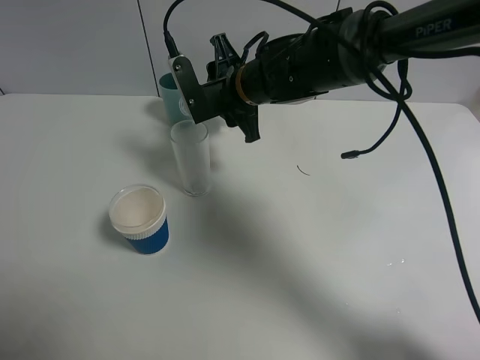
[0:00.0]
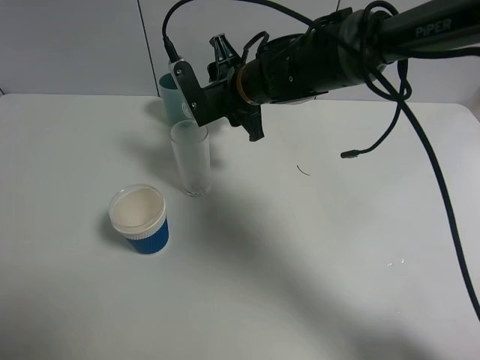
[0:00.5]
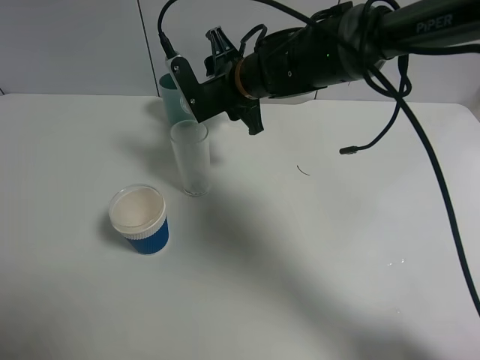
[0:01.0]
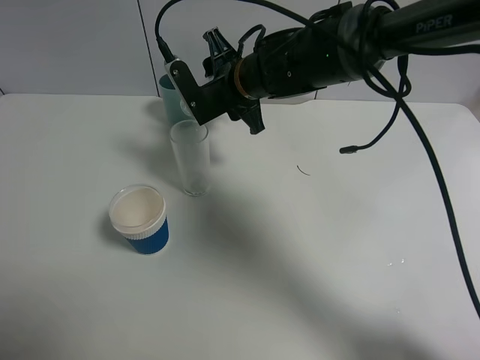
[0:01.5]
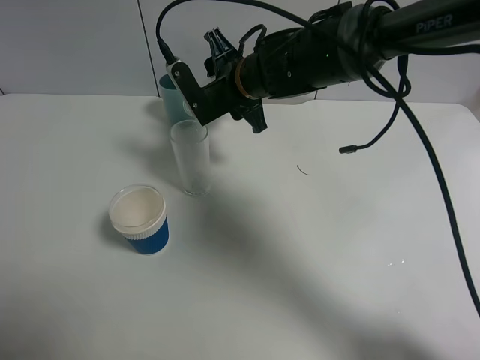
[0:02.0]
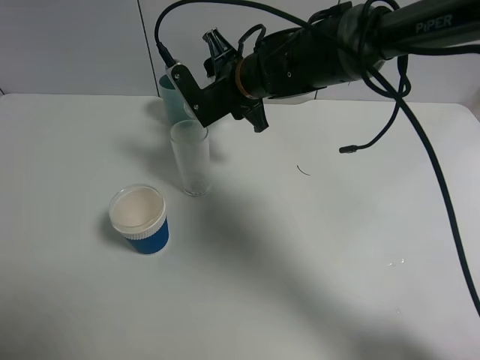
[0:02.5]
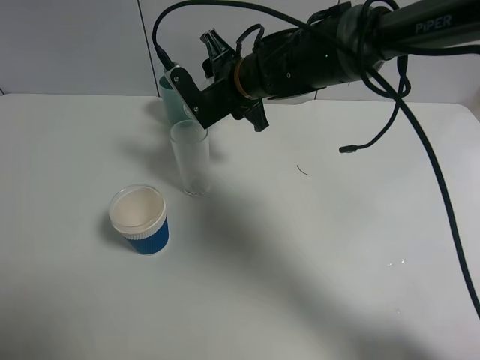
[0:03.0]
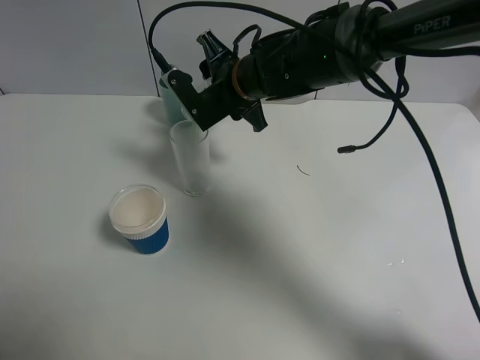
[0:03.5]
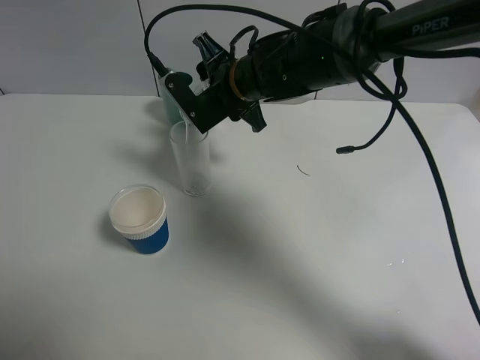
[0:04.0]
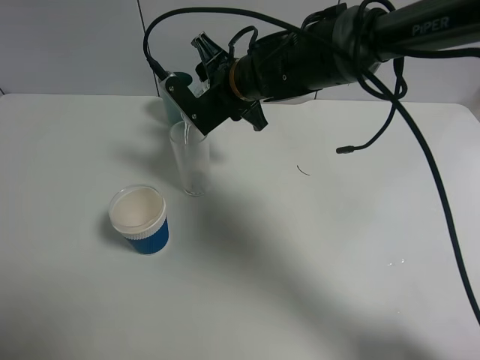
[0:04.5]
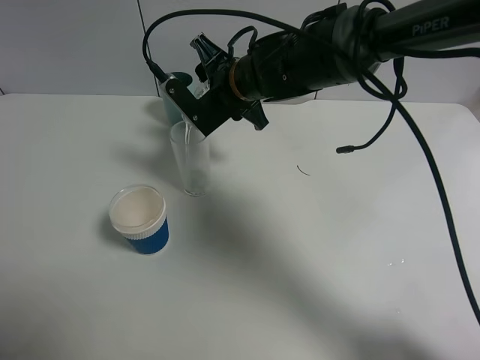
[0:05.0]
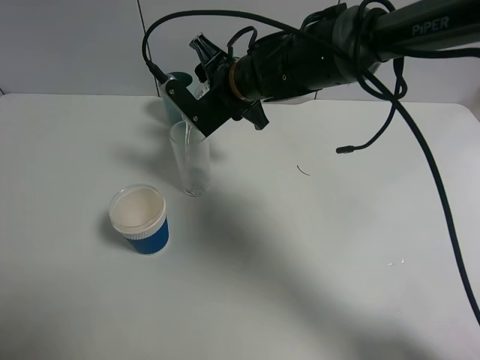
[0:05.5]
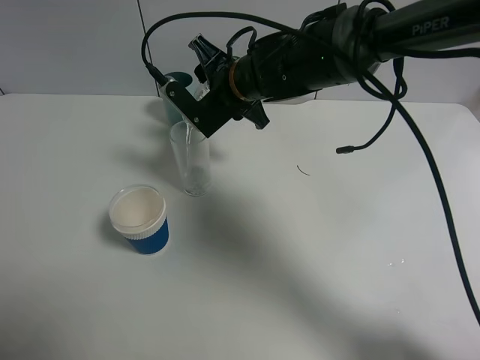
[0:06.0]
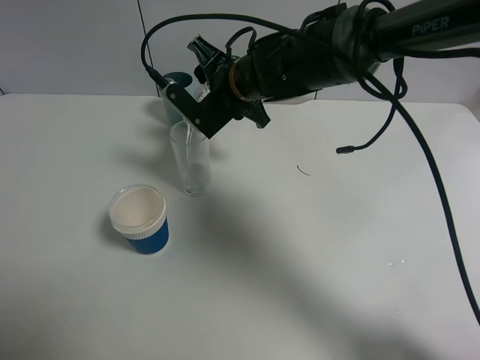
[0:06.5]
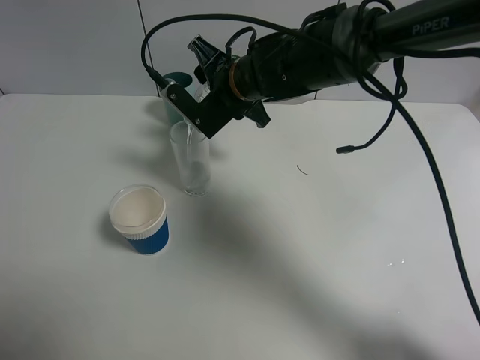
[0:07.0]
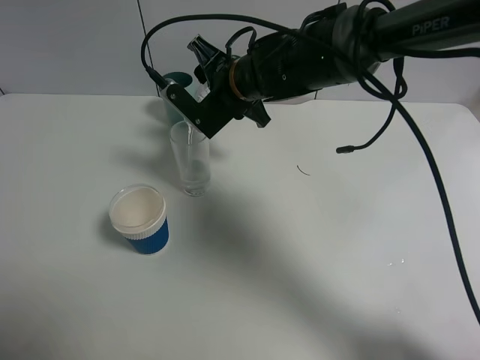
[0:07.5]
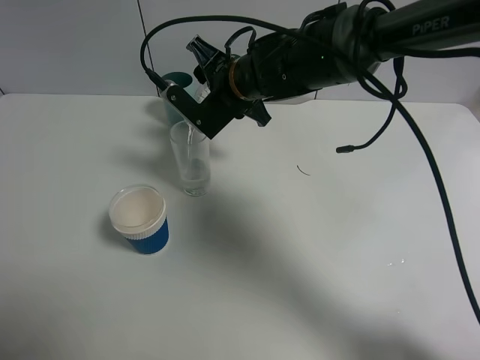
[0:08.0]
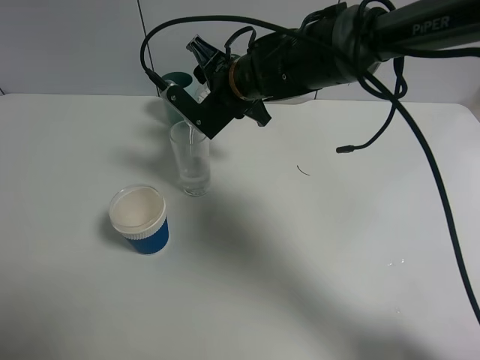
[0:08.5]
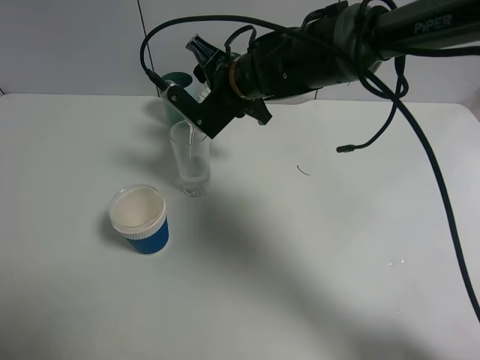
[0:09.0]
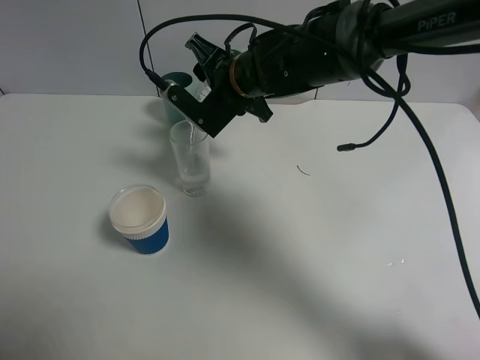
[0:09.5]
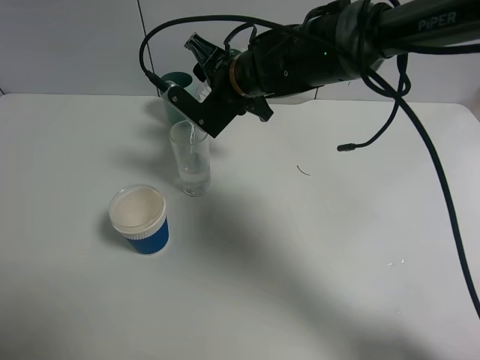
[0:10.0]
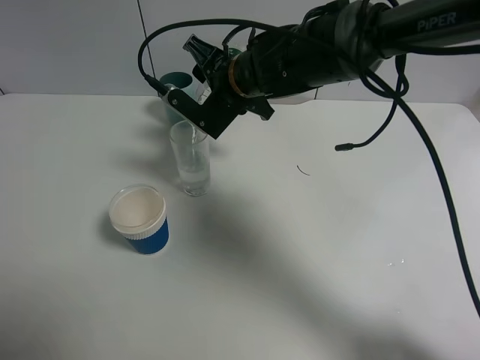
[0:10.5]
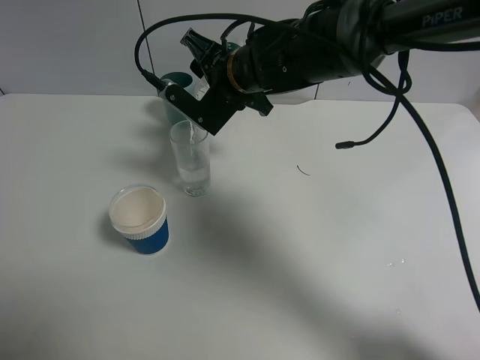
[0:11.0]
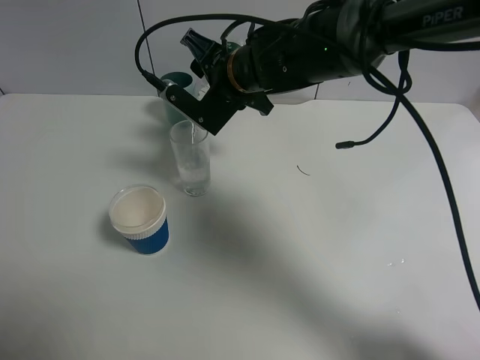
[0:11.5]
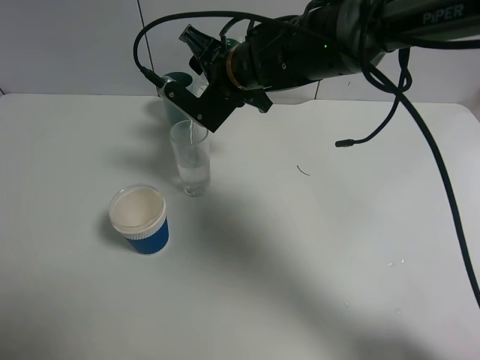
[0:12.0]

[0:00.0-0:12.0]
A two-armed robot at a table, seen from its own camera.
Task of the whole recording: use a gripper to hold the bottle of the drink and pour it into a random cup.
0:00.0 to 0:04.0: The grippers move only a little.
0:04.0 to 0:06.0: The grippers make only small movements.
0:06.0 to 0:08.0: Both grippers stay about where they are.
0:08.0 to 0:10.0: Both grippers stay put.
0:10.0 to 0:12.0: Both grippers stay about where they are.

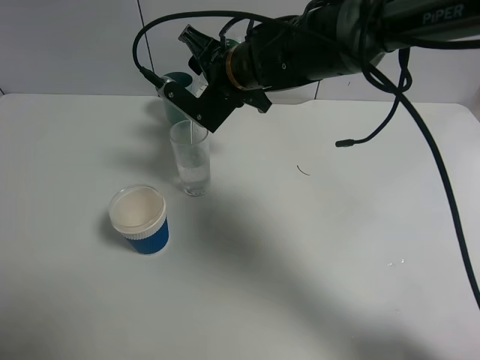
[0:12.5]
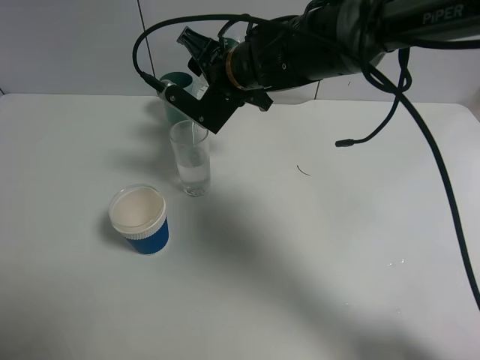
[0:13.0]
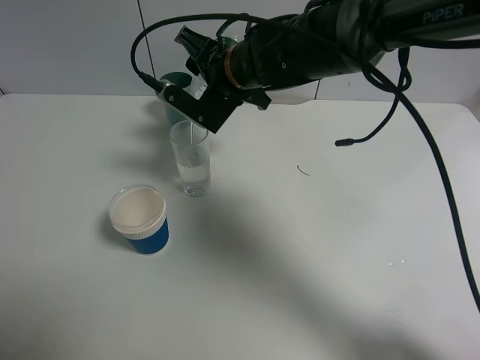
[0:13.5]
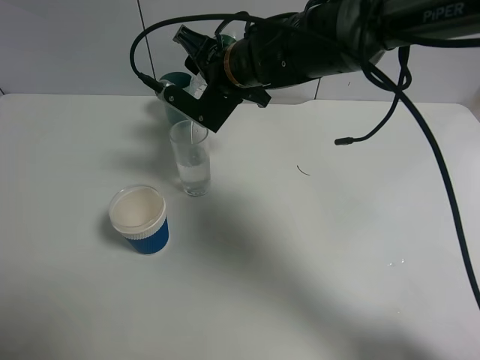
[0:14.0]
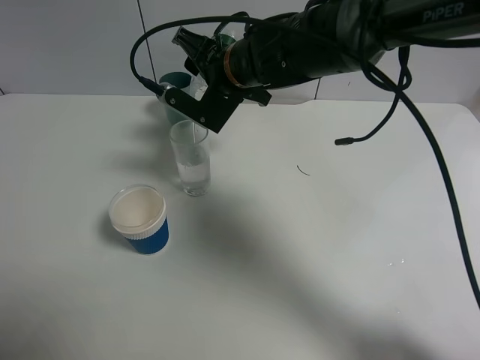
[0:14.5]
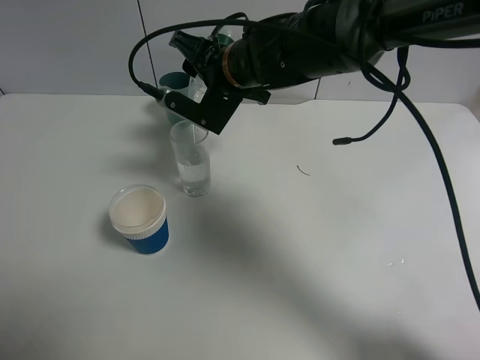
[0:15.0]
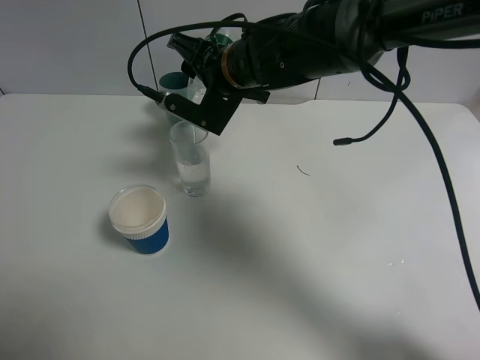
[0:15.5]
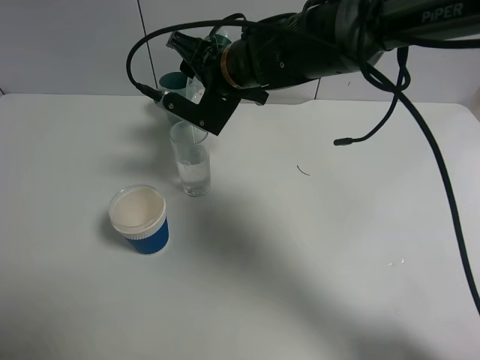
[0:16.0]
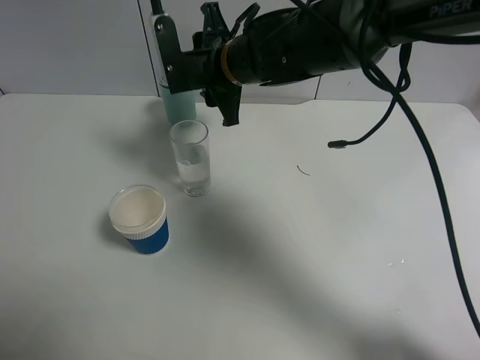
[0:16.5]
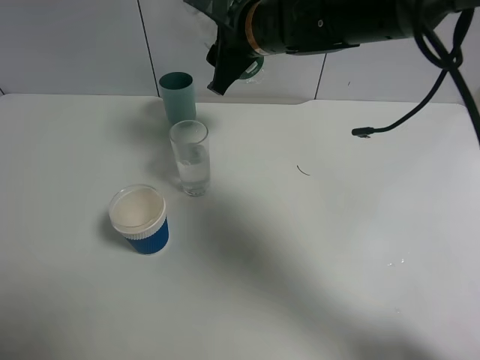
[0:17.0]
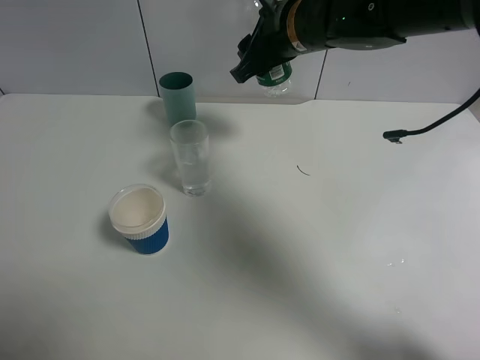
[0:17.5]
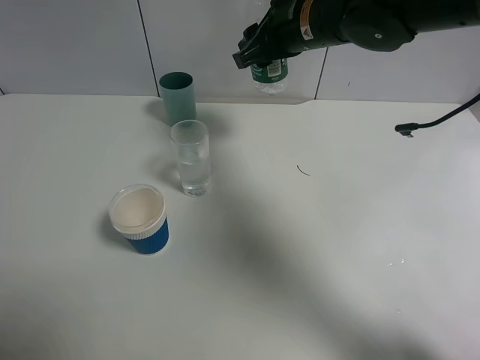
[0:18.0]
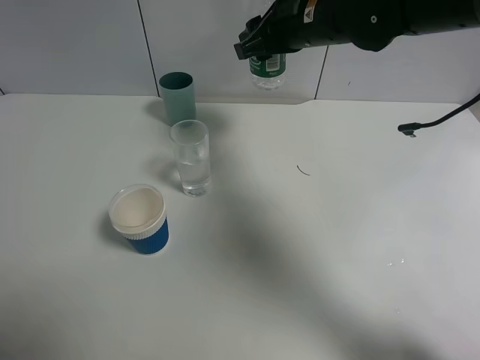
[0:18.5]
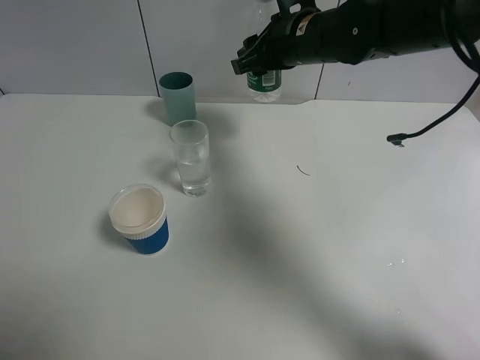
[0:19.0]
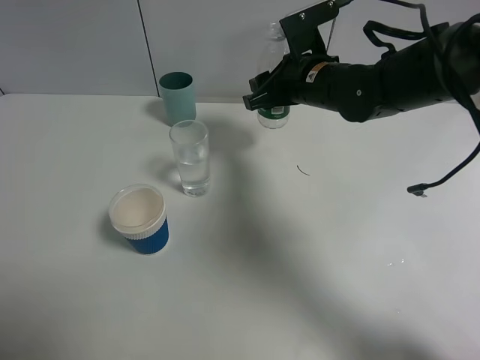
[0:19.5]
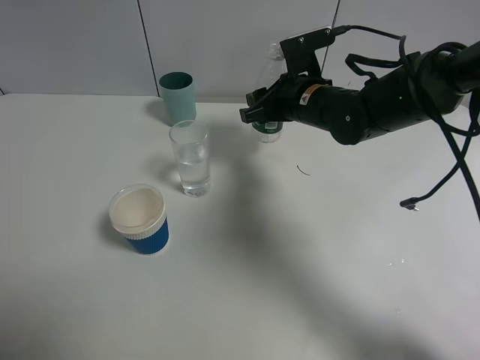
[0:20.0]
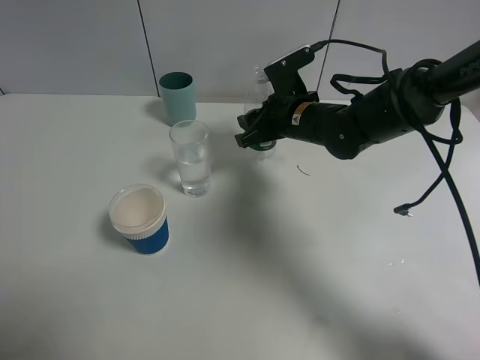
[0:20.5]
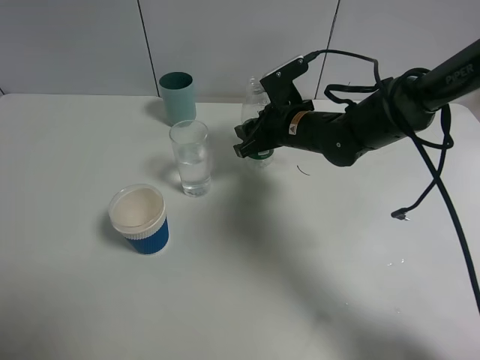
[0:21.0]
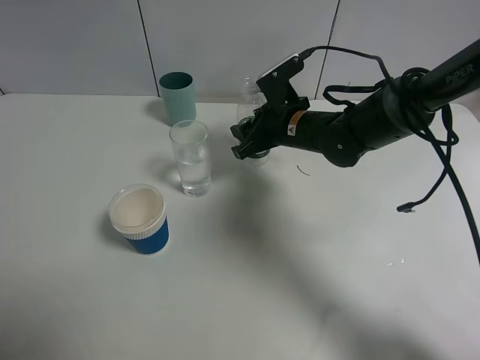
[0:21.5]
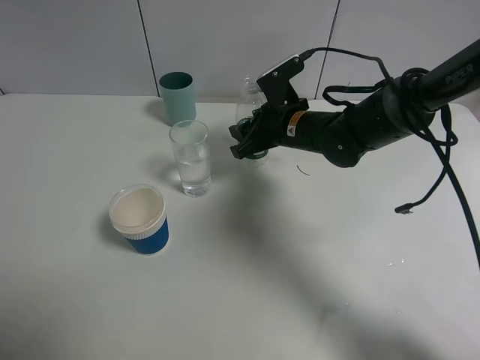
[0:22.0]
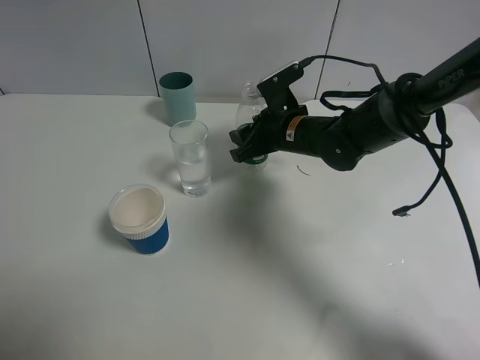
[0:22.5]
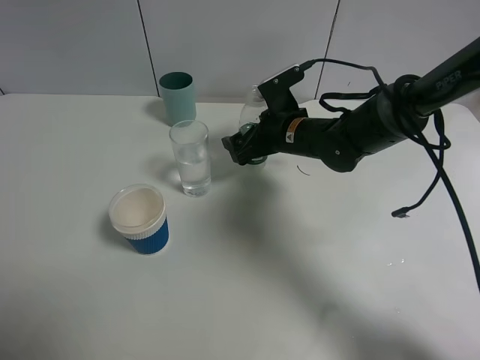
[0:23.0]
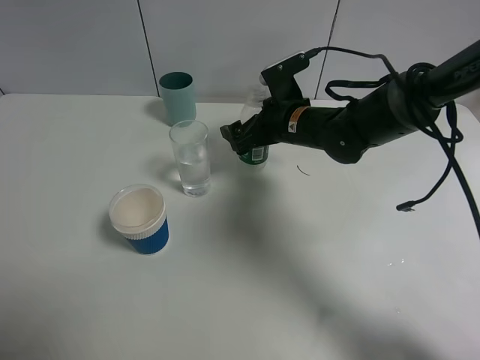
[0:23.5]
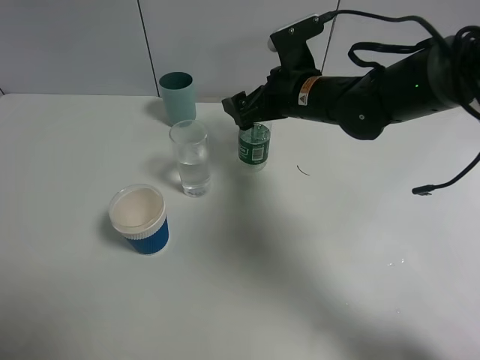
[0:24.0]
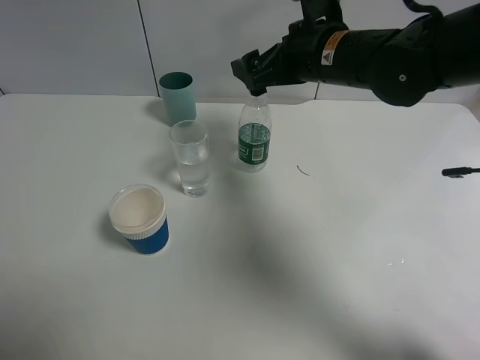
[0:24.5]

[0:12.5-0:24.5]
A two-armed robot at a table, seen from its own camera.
Task of the whole recording: use a gripper to hold the bottle of the drink and pour it into a random cup.
Step, 0:12.5 to 0:16.5: Pour the mineral water into the glass with the right gripper.
Step, 0:17.0 to 0:24.0: Place the mineral water bottle on the table with the right gripper.
0:12.5 to 0:14.5: The grippers make only small movements.
0:16.5 to 0:18.5: The right gripper is displaced to the right by approximately 10 cm.
0:18.5 to 0:20.5: The right gripper travels downward by about 15 cm.
0:20.5 to 0:22.5: The grippers move only a little.
0:22.5 to 0:24.5: The right gripper shifts approximately 15 cm upward, and opens up.

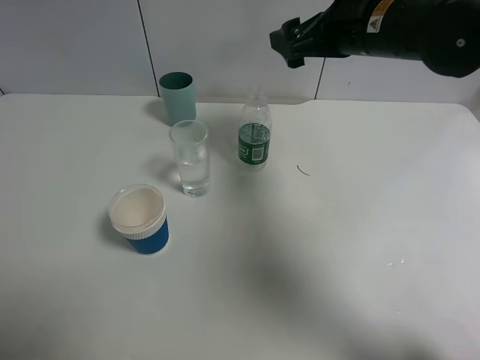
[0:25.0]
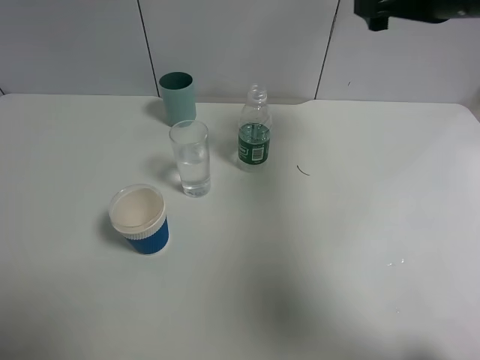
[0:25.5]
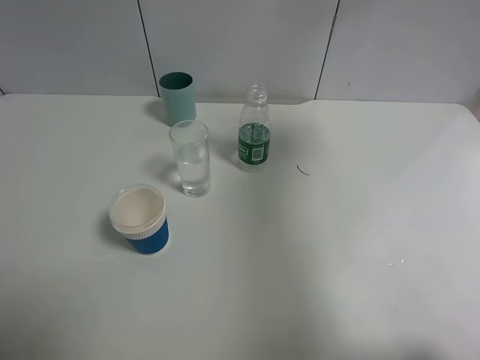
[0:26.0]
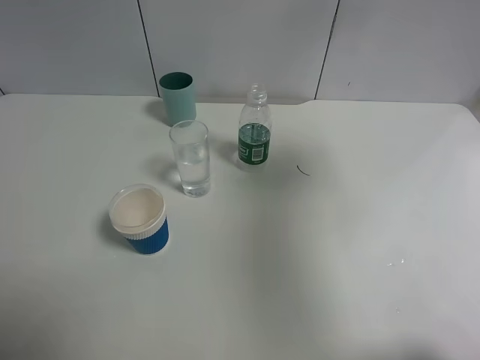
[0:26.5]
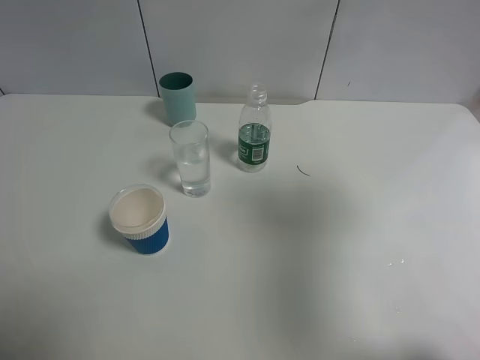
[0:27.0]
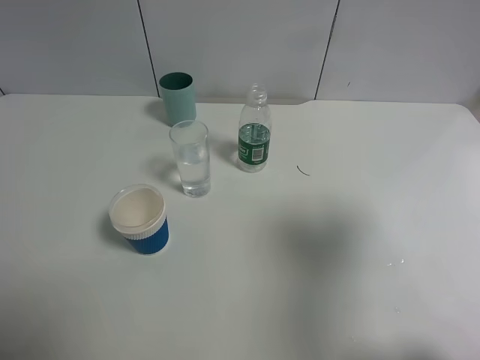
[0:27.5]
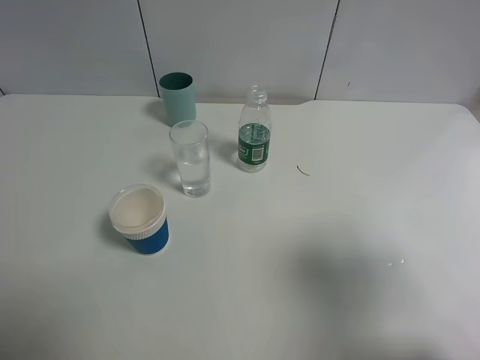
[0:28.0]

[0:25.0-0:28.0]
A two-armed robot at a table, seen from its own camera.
Task of the whole recording: use a gripper to hold the bottle of the drink and pour it into a random cup.
0:25.0 to 0:26.5: The right gripper shifts roughly 25 cm backward, to the right and upward.
0:26.5 to 0:28.0: The right gripper goes about 15 cm backward and downward.
